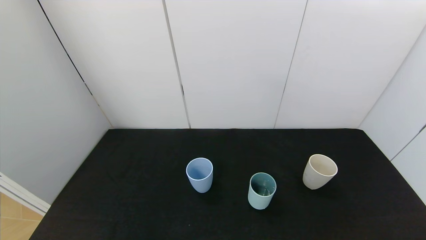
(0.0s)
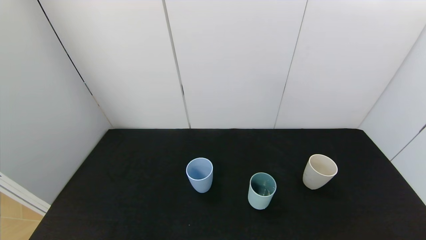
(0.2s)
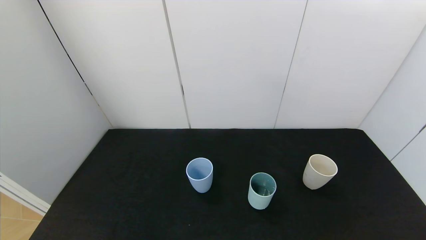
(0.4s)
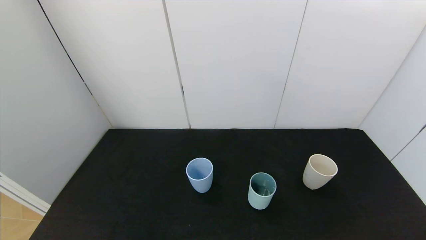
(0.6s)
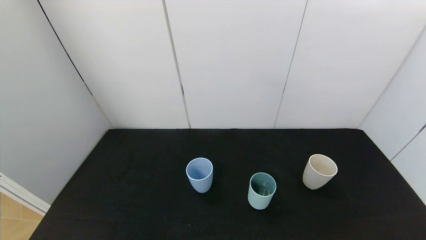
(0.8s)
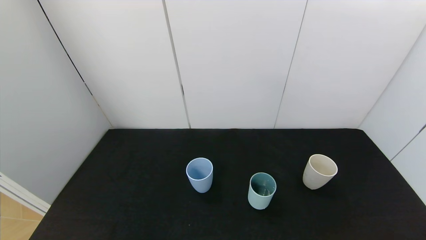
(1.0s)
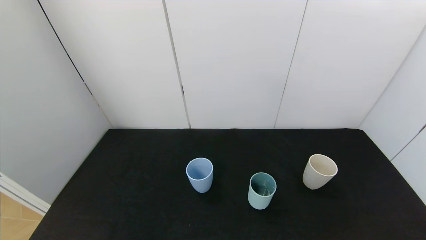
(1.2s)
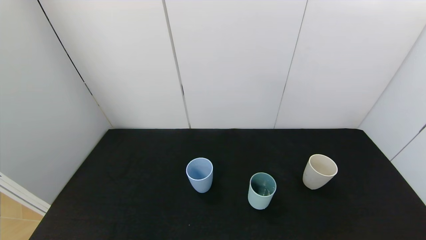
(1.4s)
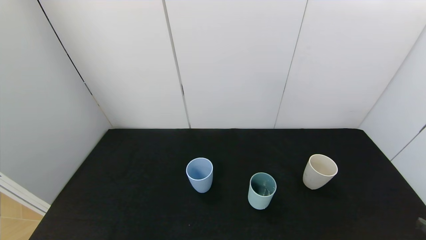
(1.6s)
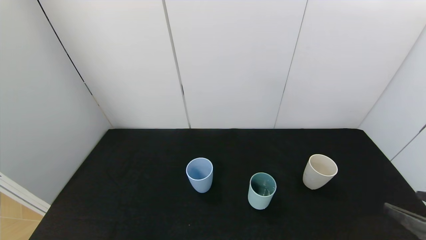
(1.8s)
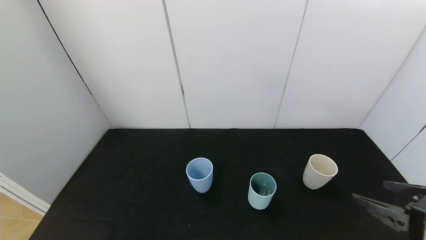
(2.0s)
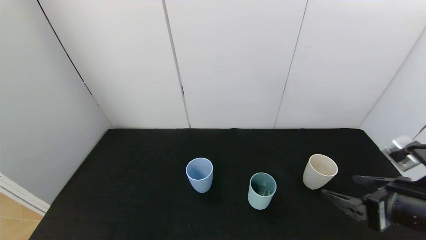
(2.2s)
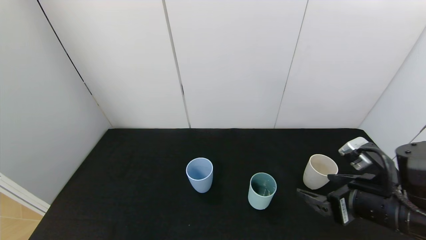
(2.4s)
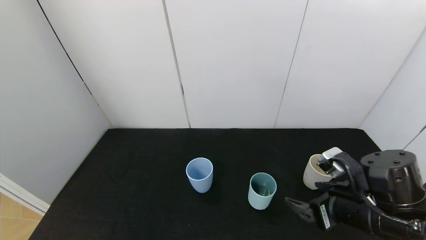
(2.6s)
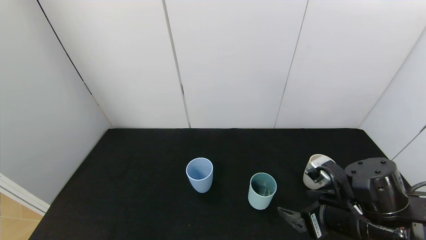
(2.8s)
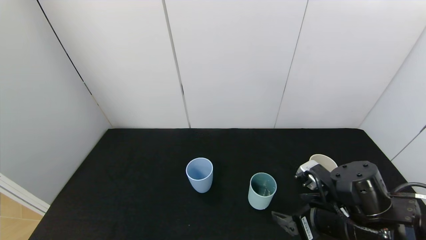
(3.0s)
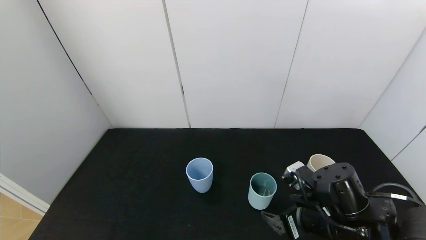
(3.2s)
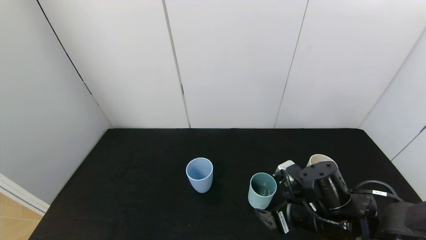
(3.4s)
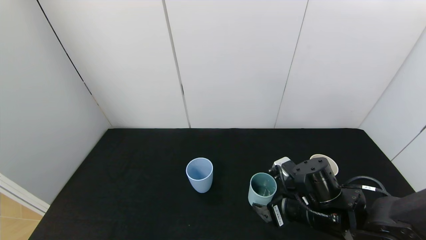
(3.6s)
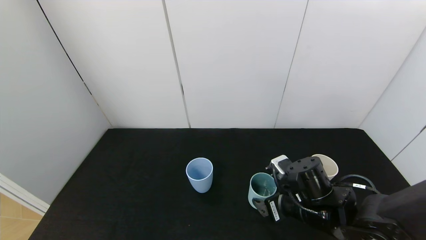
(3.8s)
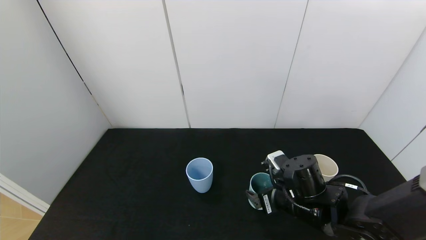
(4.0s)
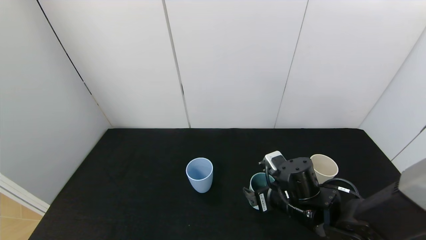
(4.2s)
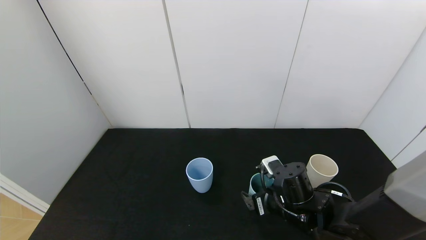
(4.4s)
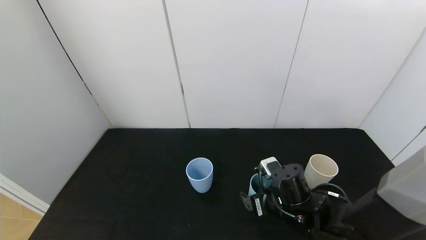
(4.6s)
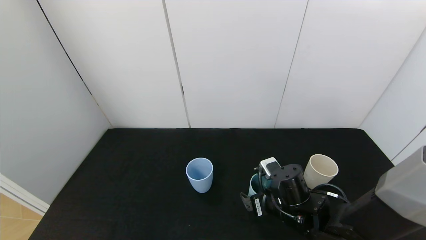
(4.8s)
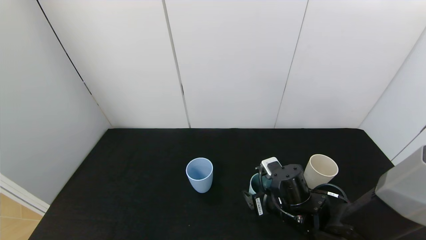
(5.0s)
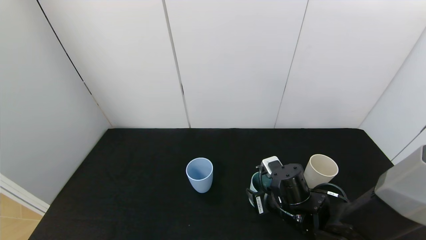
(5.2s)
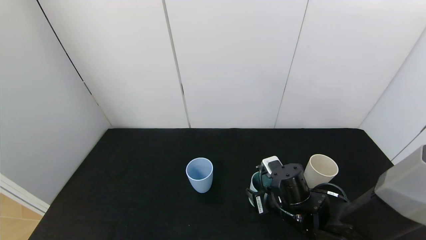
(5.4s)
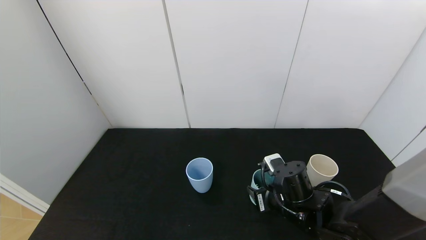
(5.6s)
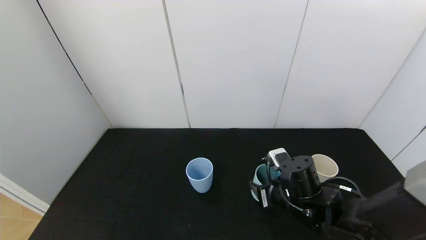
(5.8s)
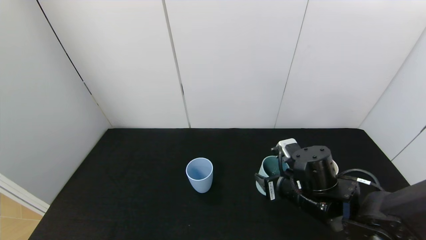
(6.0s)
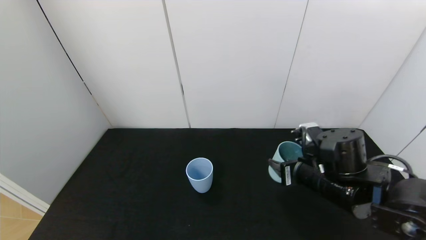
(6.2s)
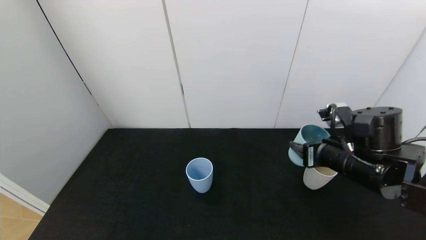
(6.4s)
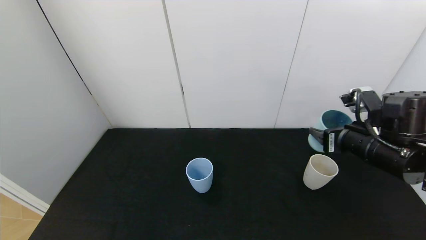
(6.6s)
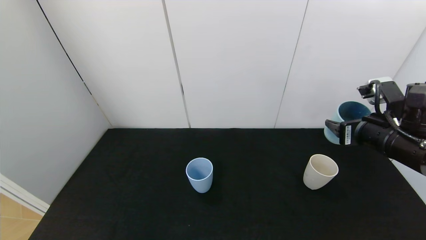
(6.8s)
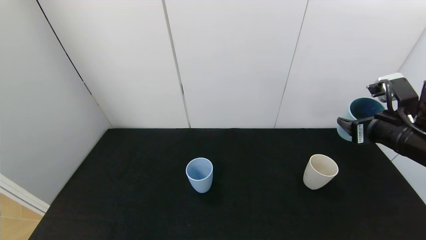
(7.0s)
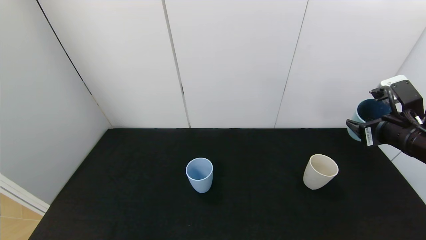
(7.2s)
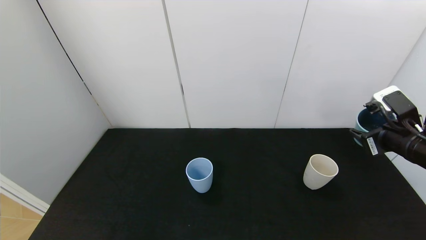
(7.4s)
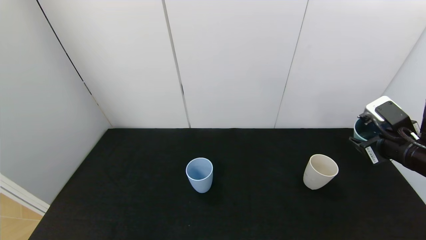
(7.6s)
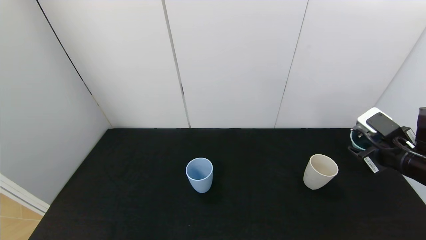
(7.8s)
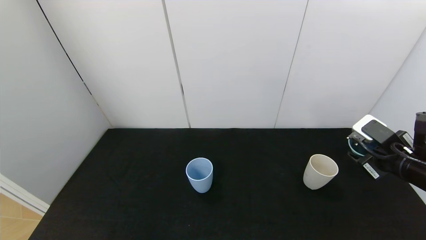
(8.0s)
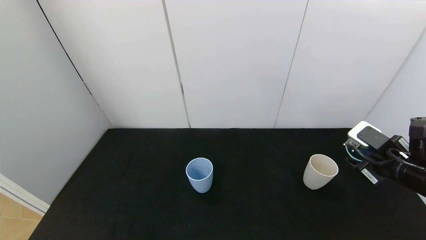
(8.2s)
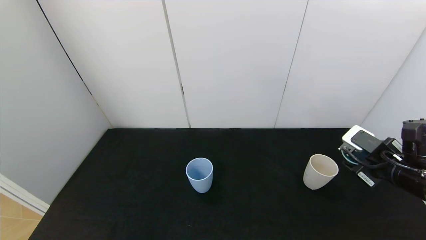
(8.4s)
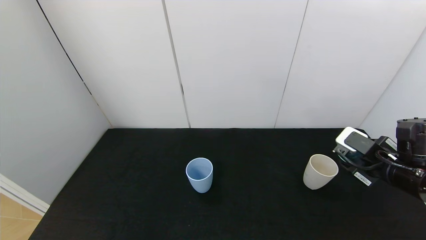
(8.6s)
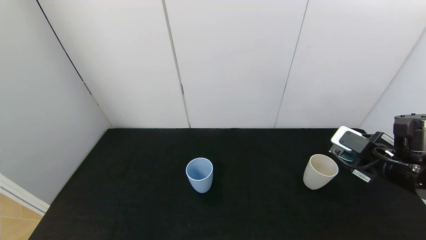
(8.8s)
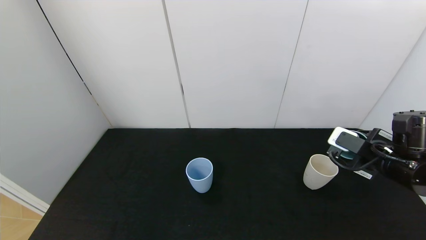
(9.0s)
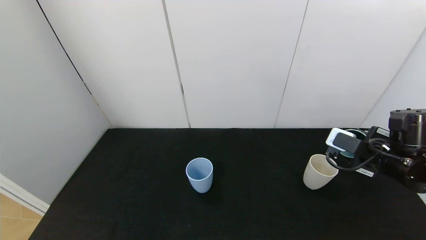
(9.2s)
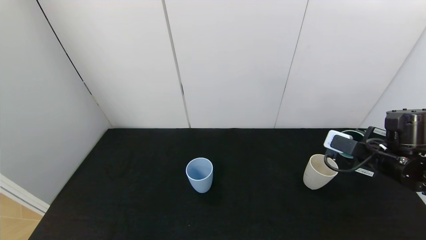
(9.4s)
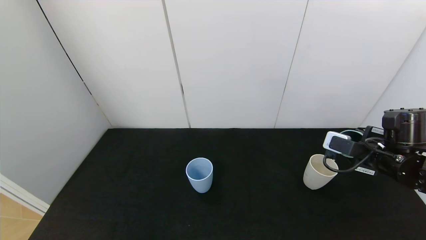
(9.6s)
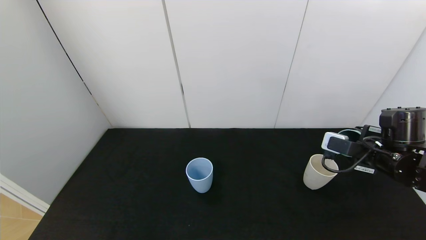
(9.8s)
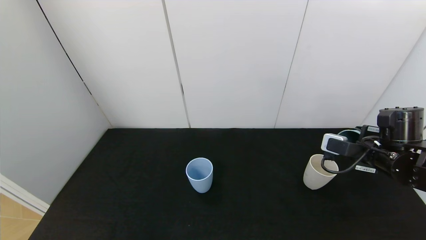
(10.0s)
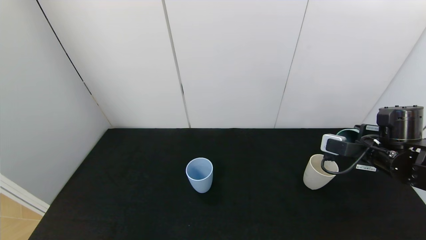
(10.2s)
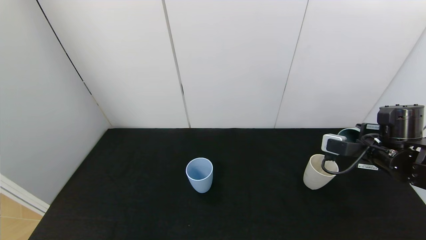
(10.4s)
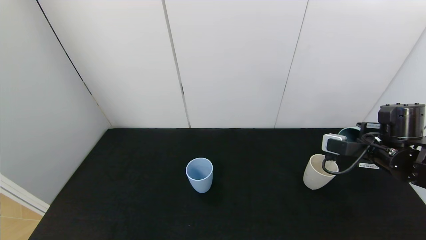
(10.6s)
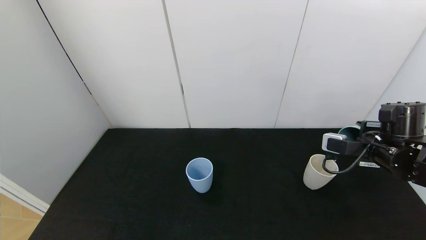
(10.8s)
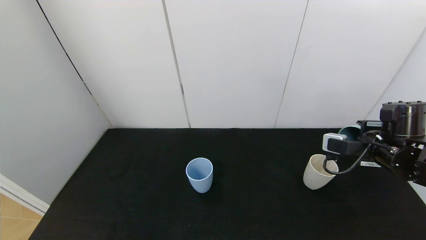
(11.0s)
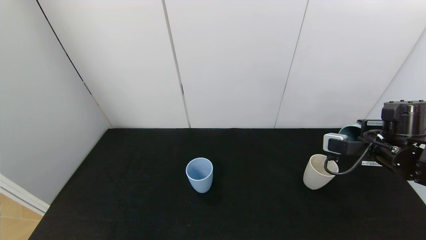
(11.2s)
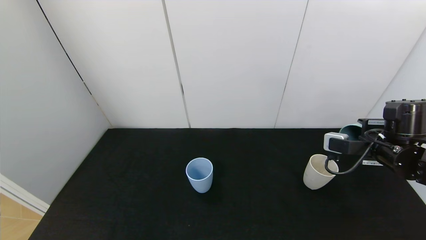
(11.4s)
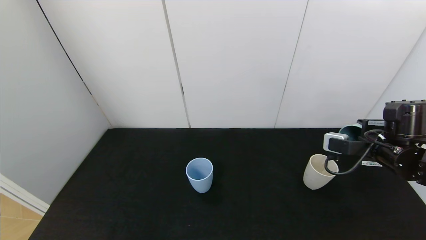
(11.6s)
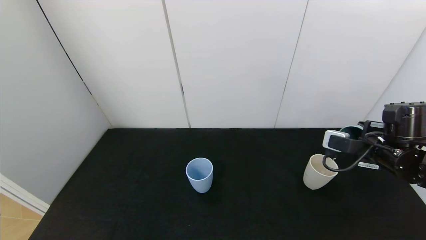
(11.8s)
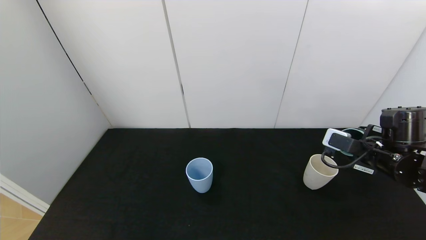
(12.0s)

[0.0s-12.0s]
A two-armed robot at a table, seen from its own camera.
Task of the whole recording: use the gripper to pour the water into the other two cups on black table.
Step, 0.0s to 5.4s: Grasp the green cup with the right gripper.
Step, 5.6s to 11.6s: Pour water from green cup to white cup with the right gripper.
1.6s to 3.0s: The right gripper is displaced forward, to the left and downward by some 20 cm.
3.0s to 4.4s: The right gripper heads to the left, forward and downward, covering roughly 10 cm.
4.4s to 6.0s: The right gripper moves some 5 cm, and closes its fingers.
6.0s to 7.6s: The right gripper shifts some 20 cm to the right and upward.
10.4s to 12.0s: The grippers make only small movements.

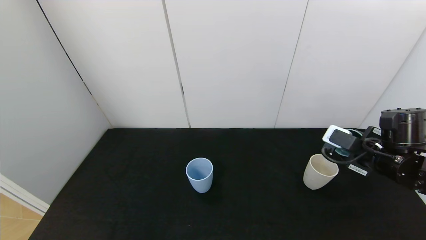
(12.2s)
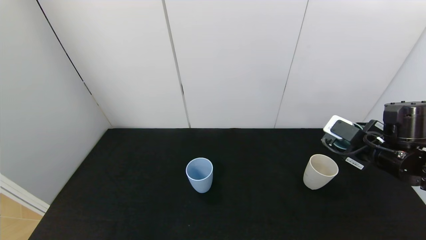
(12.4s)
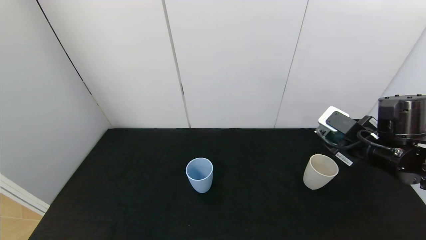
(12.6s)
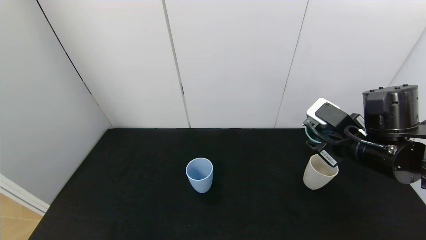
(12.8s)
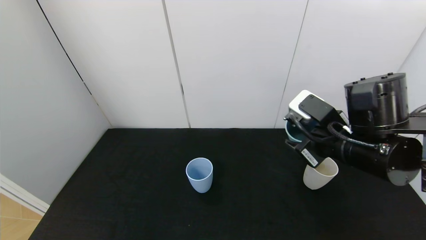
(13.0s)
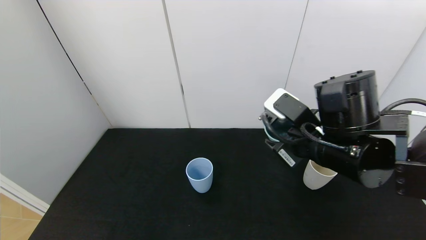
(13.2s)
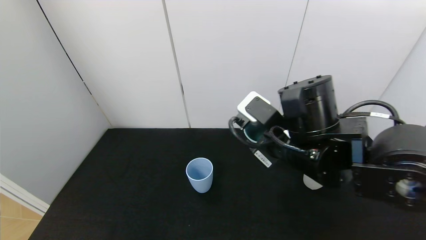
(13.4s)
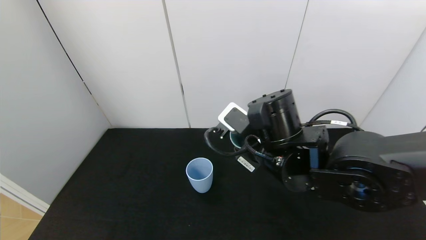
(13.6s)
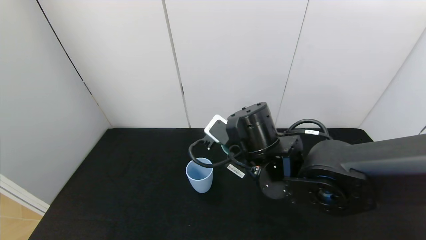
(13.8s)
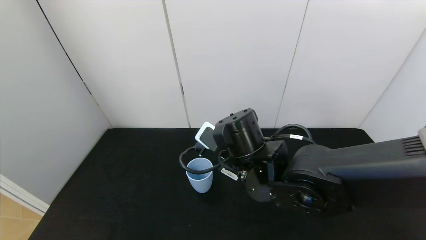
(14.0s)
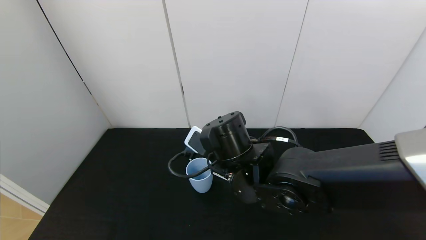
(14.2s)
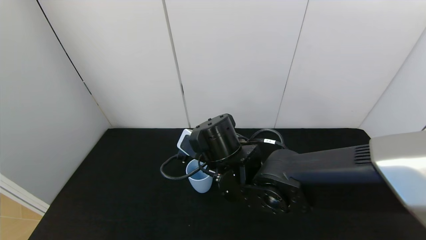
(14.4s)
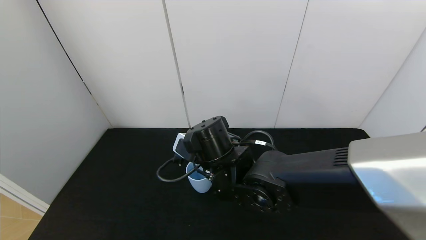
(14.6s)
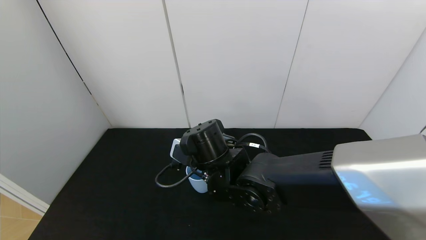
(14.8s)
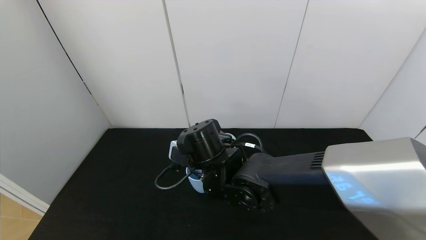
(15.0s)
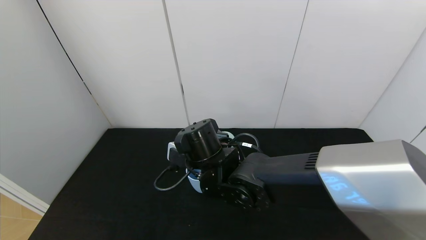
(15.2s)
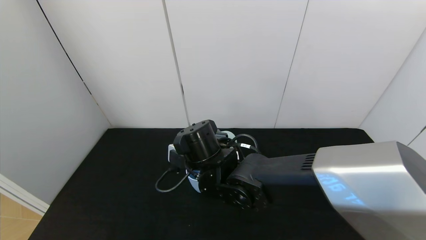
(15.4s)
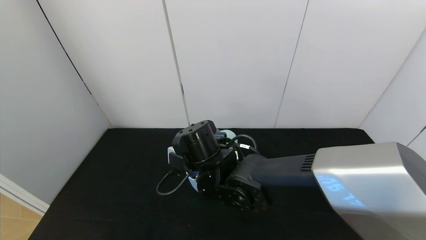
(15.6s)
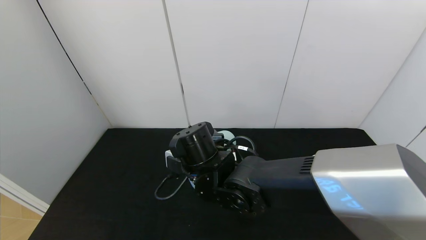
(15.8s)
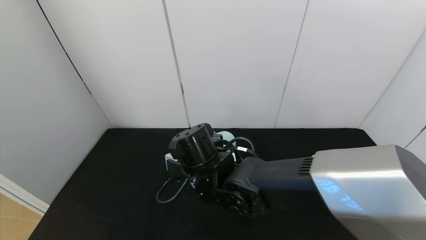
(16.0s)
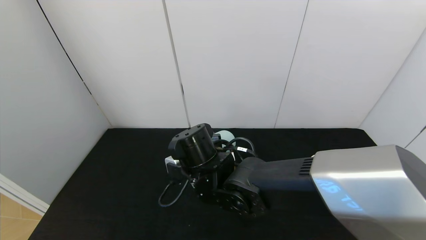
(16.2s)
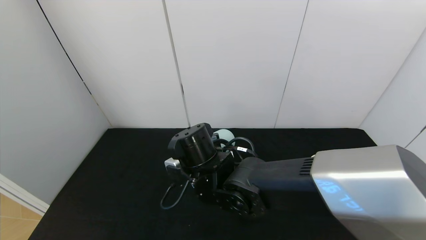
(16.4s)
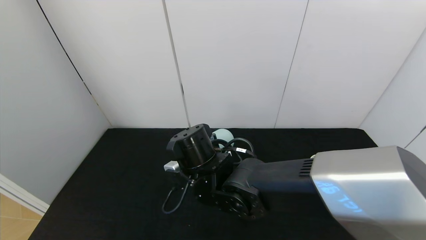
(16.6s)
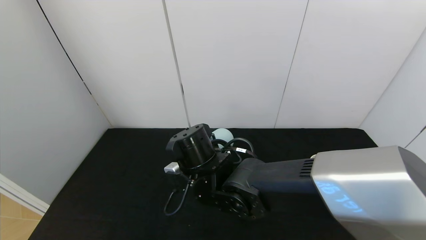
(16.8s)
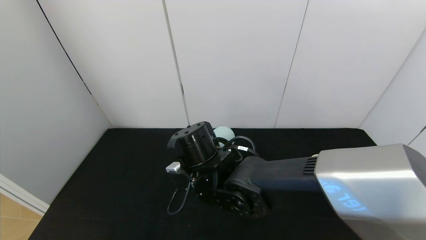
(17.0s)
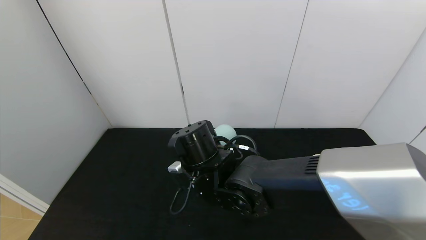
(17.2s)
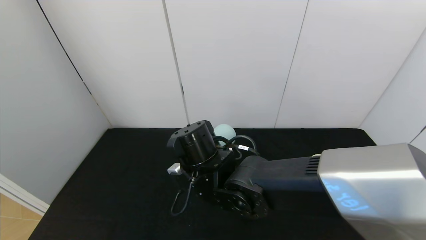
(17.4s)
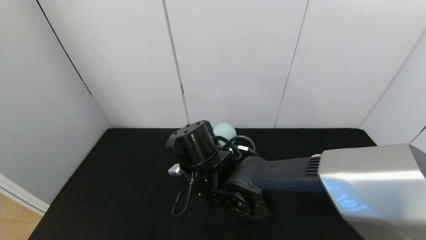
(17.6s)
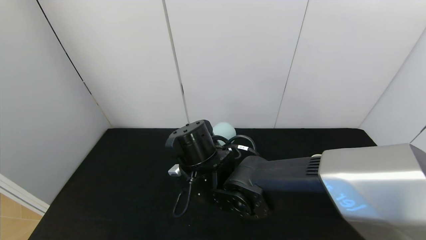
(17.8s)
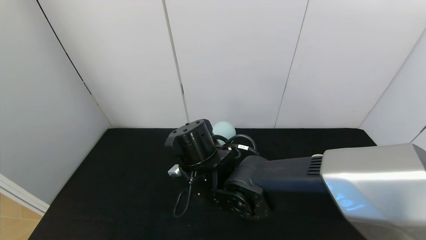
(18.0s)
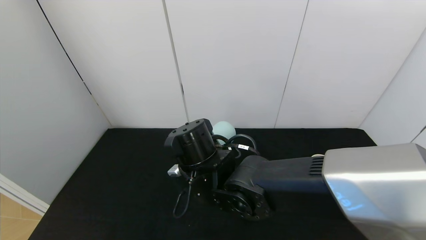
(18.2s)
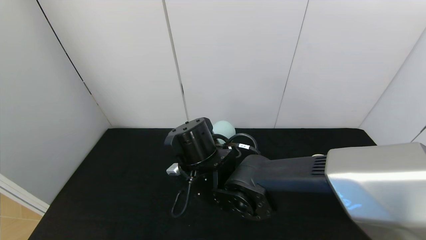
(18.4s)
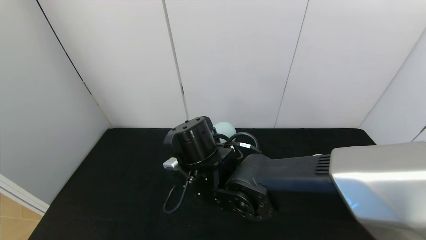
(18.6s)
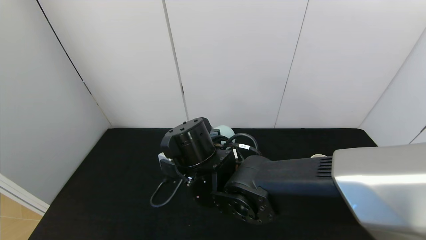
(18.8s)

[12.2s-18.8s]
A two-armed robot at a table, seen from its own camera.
Task of the whole recording: use the gripper to pour the water into the other two cups on black table.
Step, 12.2s to 18.6s: Pour water from green cup to blue cup with the right gripper.
12.2s to 13.8s: The right gripper goes roughly 25 cm to the left.
13.8s to 15.4s: The right gripper heads to the left, covering approximately 10 cm.
17.2s to 18.8s: The grippers stay close to where they were, moving slightly.
